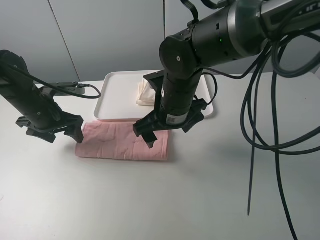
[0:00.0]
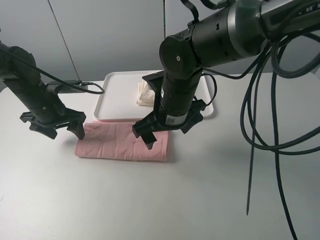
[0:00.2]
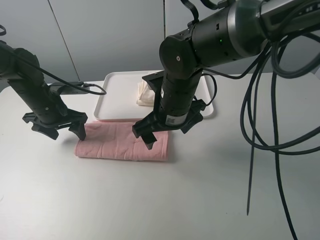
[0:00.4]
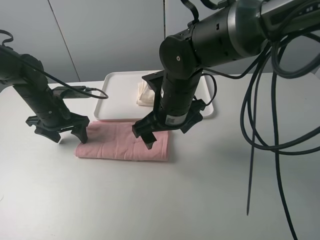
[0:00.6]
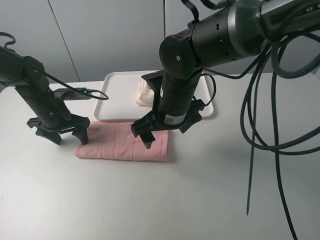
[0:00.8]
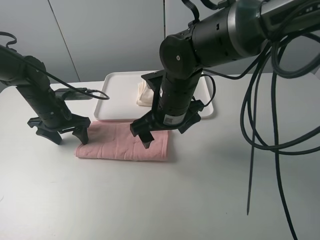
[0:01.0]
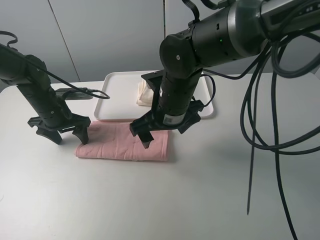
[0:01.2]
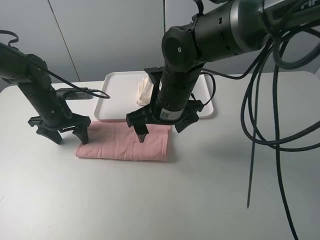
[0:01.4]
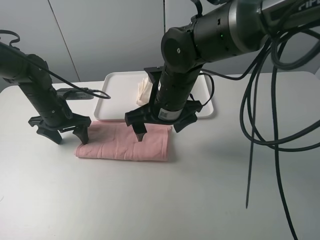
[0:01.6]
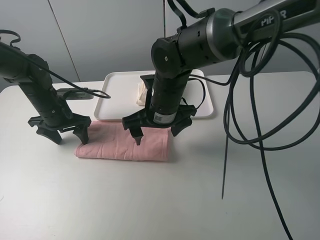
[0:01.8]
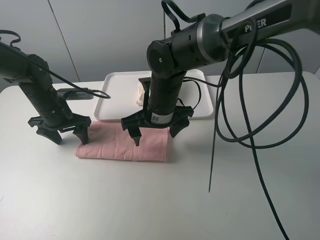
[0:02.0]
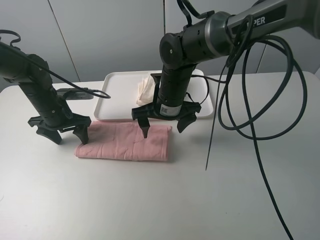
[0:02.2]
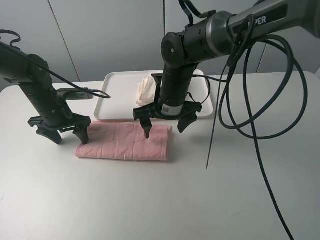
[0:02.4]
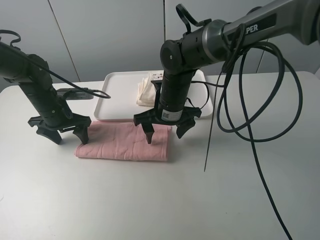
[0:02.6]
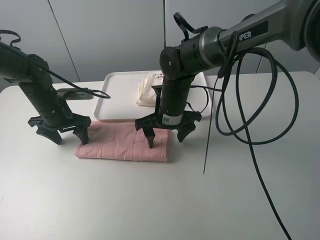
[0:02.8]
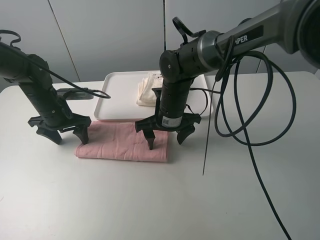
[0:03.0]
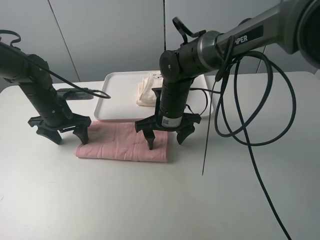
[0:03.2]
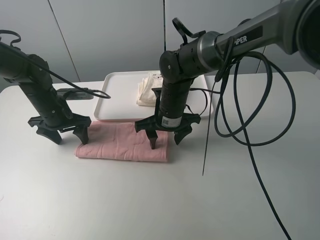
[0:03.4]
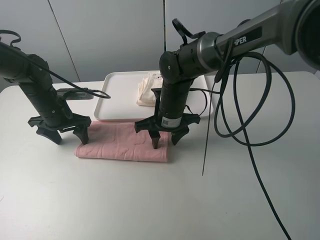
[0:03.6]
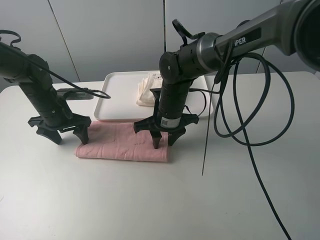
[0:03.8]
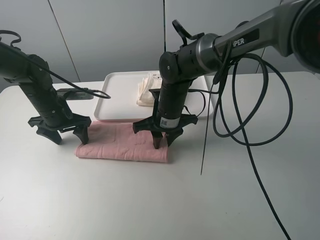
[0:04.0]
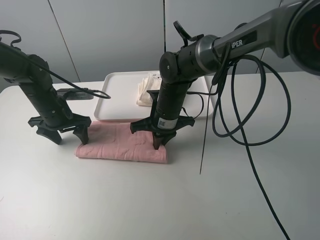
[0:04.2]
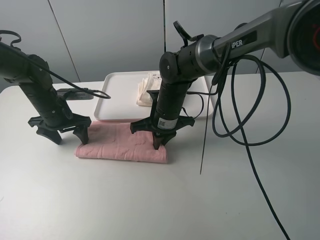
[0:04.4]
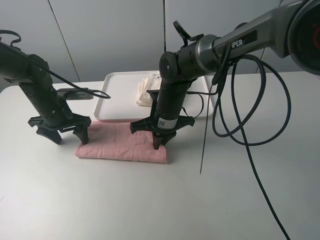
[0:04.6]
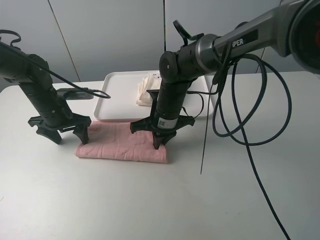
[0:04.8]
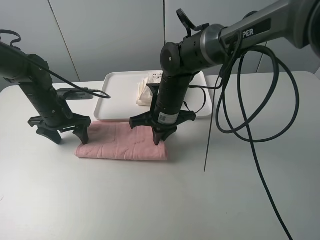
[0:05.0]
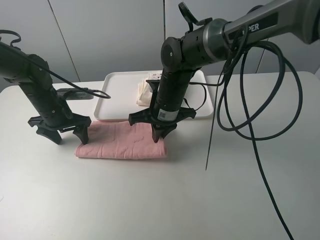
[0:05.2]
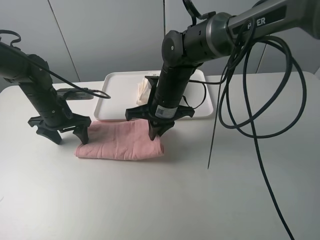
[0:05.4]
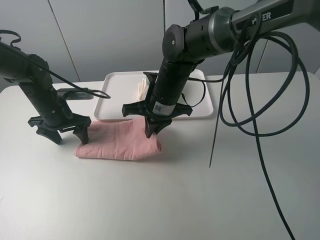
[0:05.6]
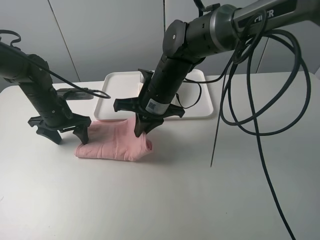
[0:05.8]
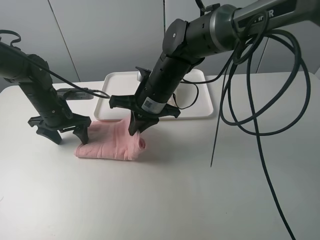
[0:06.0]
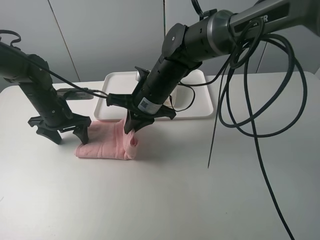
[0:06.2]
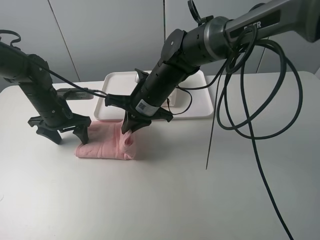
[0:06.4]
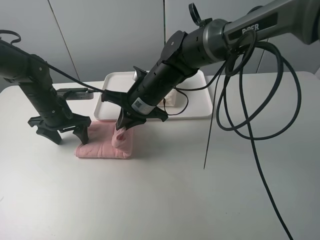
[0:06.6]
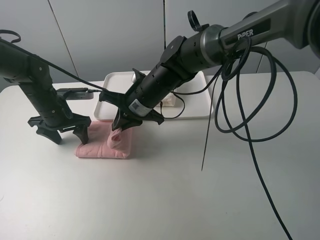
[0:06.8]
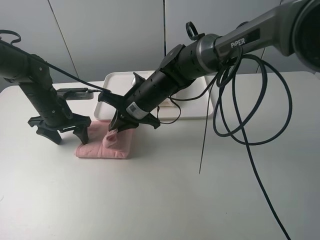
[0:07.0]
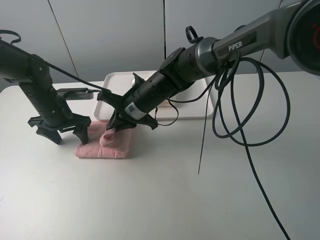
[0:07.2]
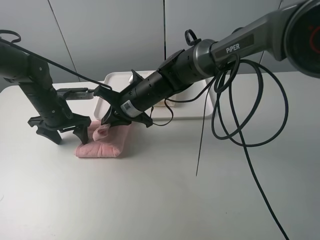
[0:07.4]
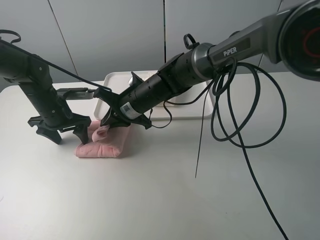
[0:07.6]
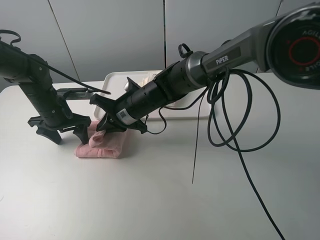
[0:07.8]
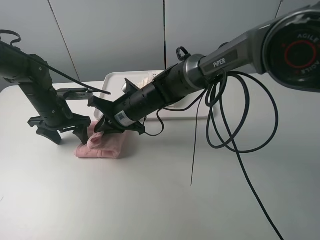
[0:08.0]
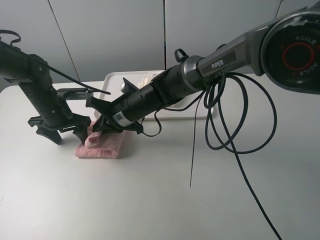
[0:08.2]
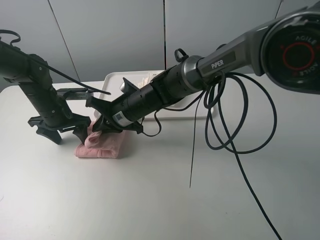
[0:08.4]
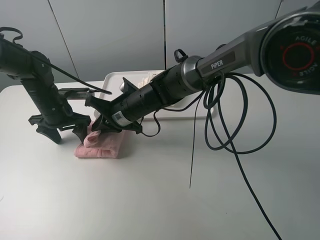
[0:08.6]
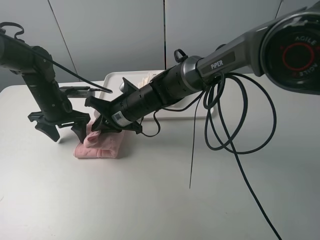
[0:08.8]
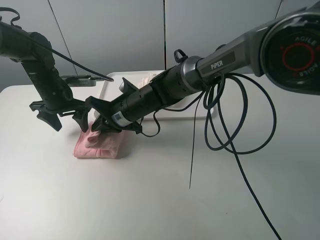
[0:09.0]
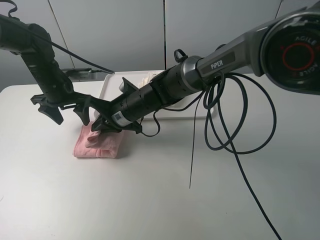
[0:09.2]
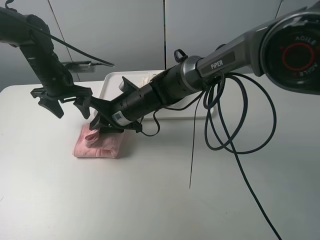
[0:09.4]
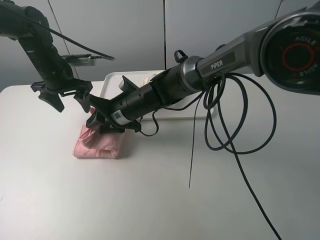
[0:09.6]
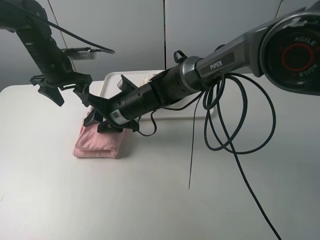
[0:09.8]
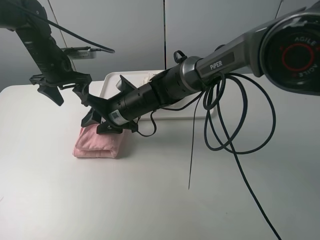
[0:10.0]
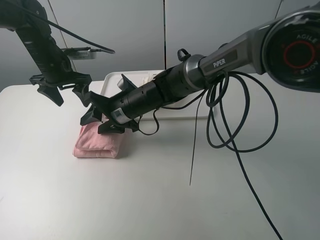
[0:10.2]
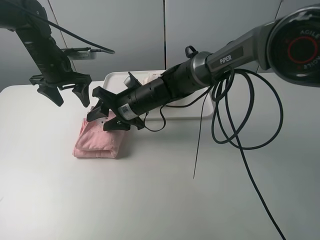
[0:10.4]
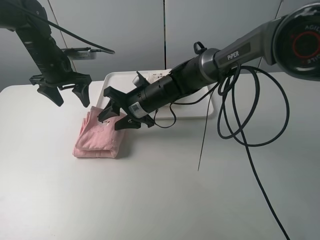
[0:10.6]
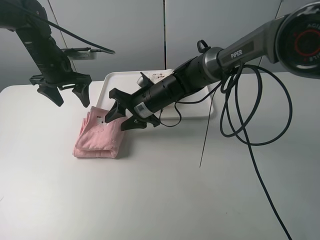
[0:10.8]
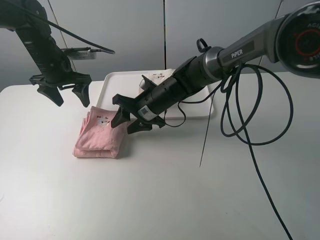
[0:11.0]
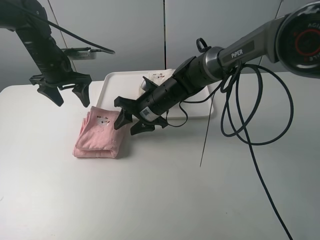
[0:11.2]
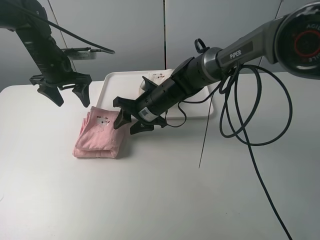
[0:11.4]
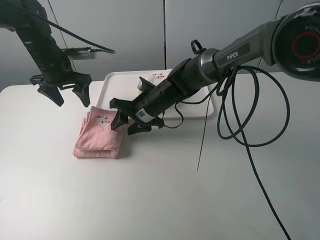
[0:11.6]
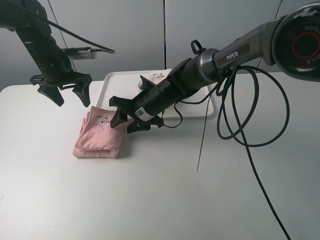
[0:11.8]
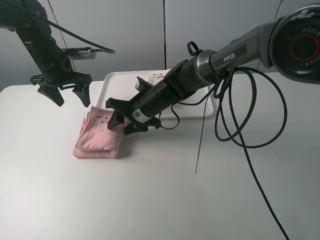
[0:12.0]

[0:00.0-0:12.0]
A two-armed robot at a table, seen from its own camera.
Task of the whole recording: fold one of the towels by two grippers and place it on the tray,then fold another towel by two grippers and place it on the folded towel.
Step, 0:00.0 to 0:01.2: Press the pink towel with the left gripper.
Step, 0:01.4 to 0:04.2: Grasp the pink towel with the right gripper.
Step, 0:04.4 to 0:09.8: Fold the pink towel from right to left with right gripper.
0:00.0 to 0:01.6: The grippers make only small movements.
0:01.6 to 0:03.0: The right gripper shifts roughly 5 cm downward.
0:03.0 to 0:04.4: The right gripper closes up.
0:04.4 to 0:06.0: The right gripper shifts about 5 cm upward.
0:06.0 to 0:07.6: The right gripper changes place by roughly 5 cm.
0:07.6 to 0:09.0: The left gripper shifts by roughly 5 cm.
0:09.0 to 0:10.4: The right gripper opens its fingers; the left gripper moves upward, about 5 cm.
0:10.4 to 0:12.0: The grippers stay close to where they were, moving slightly.

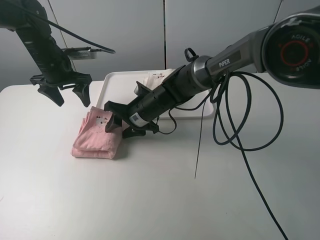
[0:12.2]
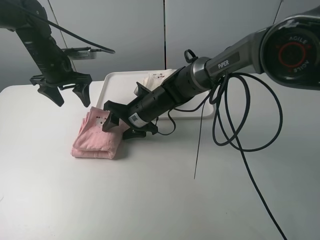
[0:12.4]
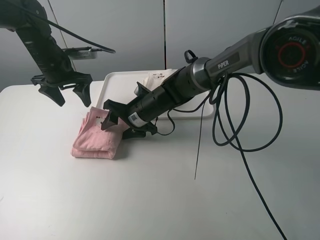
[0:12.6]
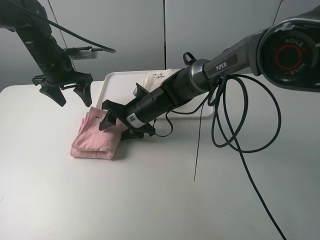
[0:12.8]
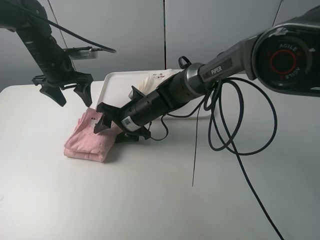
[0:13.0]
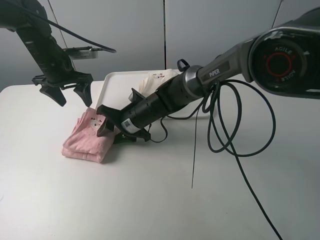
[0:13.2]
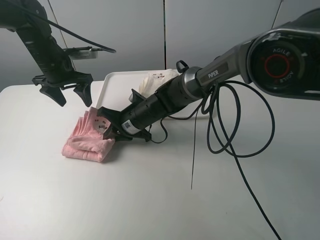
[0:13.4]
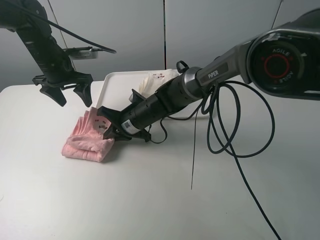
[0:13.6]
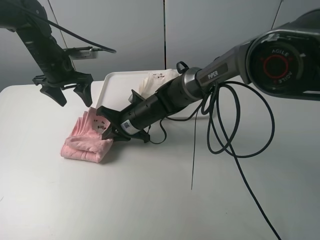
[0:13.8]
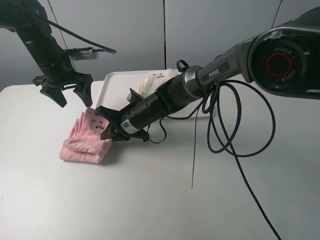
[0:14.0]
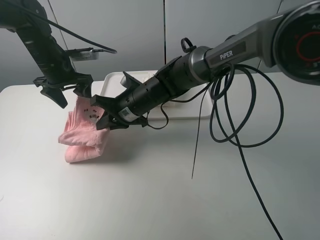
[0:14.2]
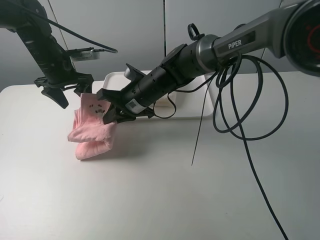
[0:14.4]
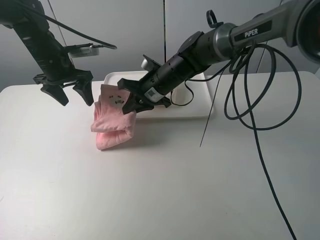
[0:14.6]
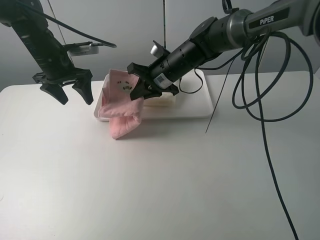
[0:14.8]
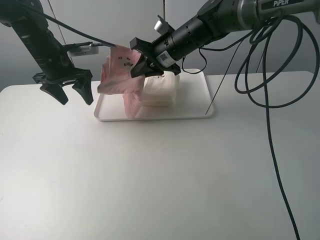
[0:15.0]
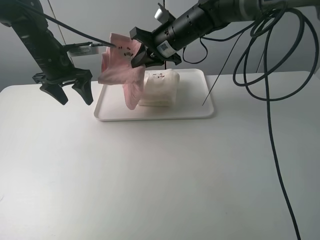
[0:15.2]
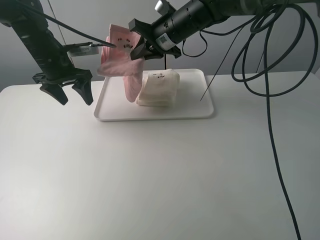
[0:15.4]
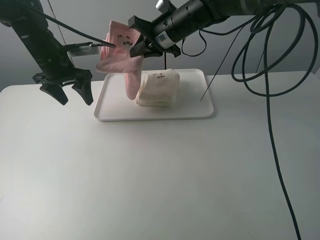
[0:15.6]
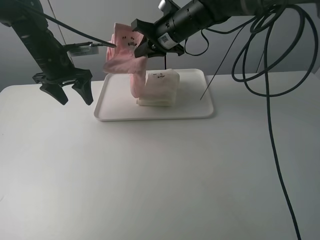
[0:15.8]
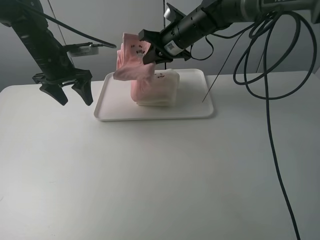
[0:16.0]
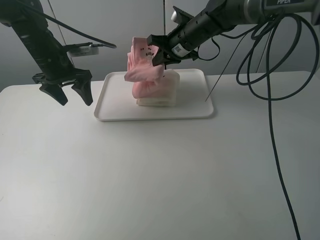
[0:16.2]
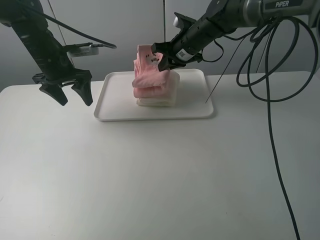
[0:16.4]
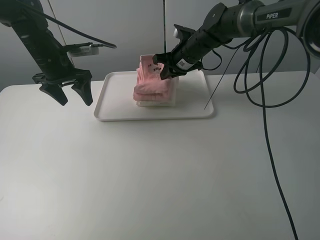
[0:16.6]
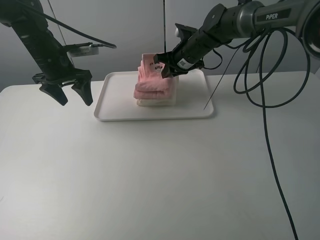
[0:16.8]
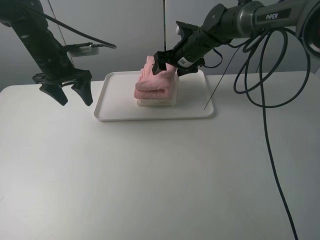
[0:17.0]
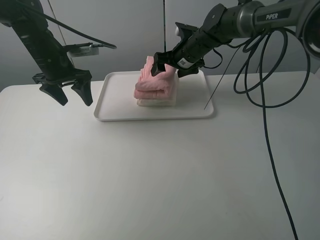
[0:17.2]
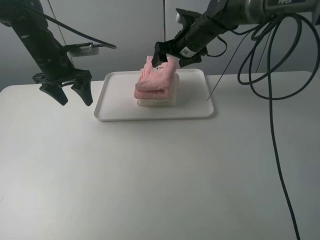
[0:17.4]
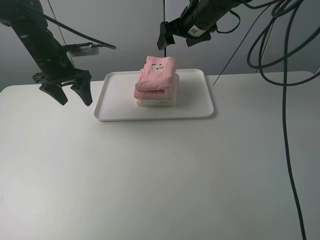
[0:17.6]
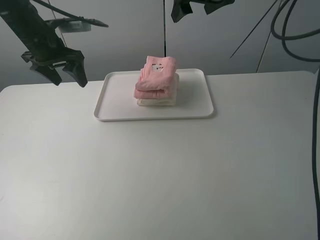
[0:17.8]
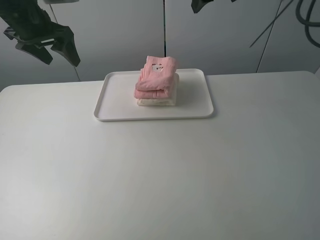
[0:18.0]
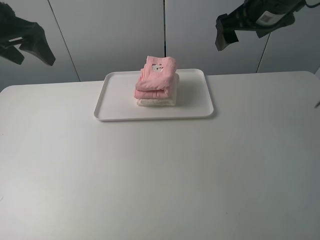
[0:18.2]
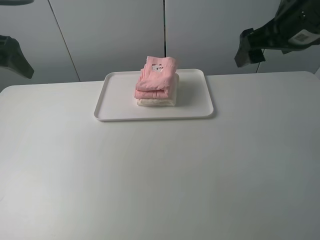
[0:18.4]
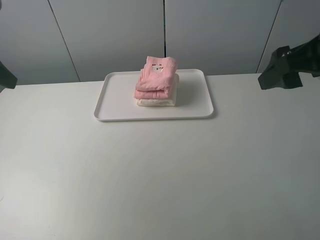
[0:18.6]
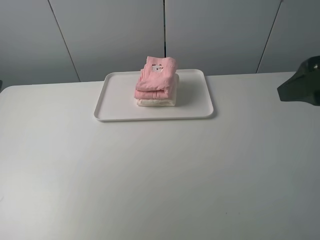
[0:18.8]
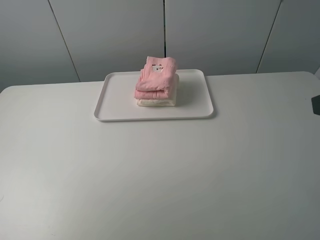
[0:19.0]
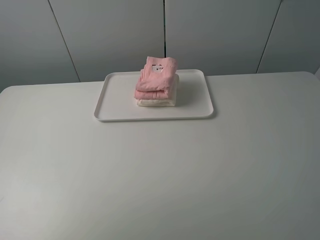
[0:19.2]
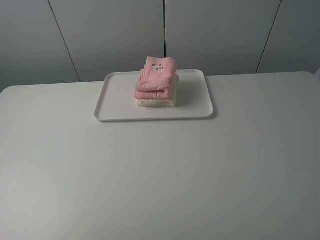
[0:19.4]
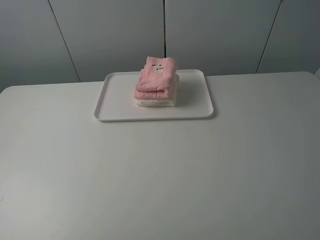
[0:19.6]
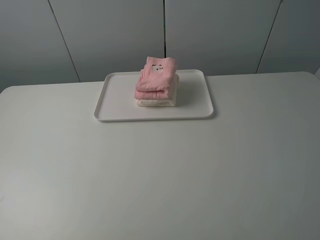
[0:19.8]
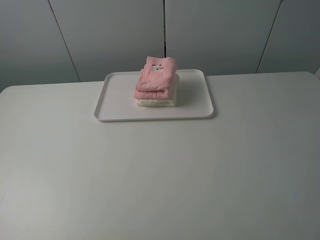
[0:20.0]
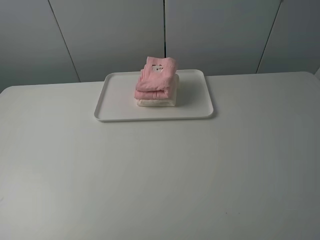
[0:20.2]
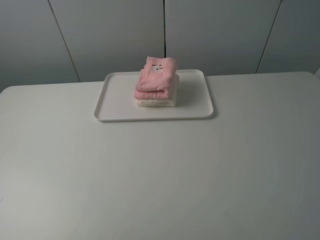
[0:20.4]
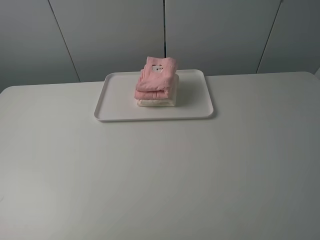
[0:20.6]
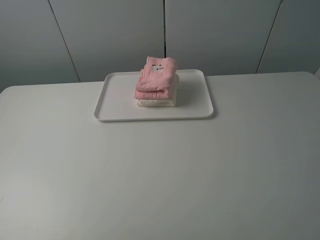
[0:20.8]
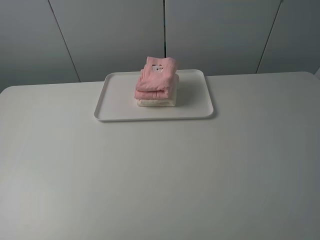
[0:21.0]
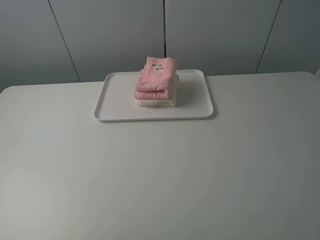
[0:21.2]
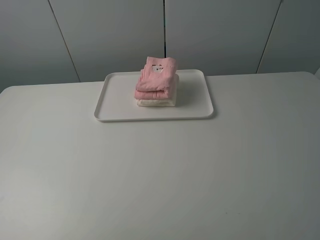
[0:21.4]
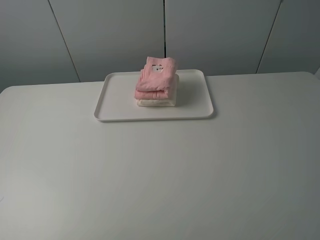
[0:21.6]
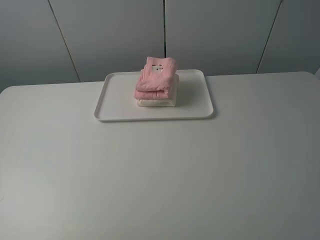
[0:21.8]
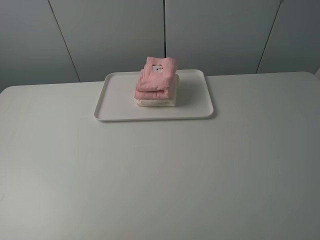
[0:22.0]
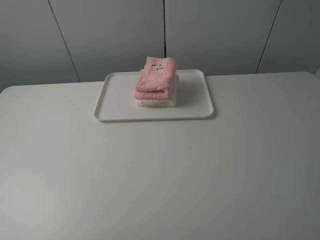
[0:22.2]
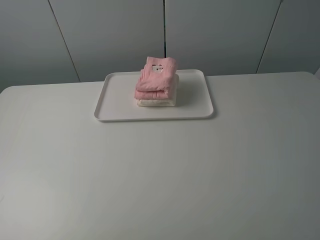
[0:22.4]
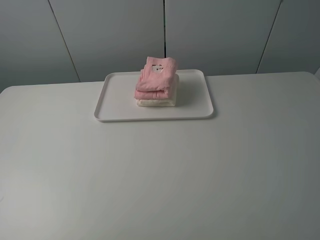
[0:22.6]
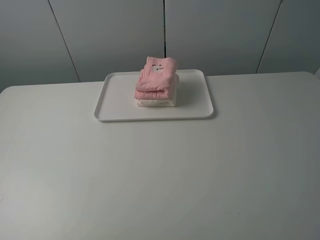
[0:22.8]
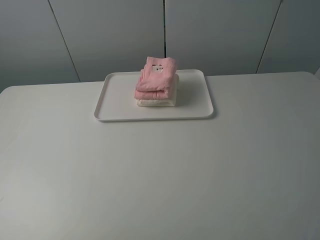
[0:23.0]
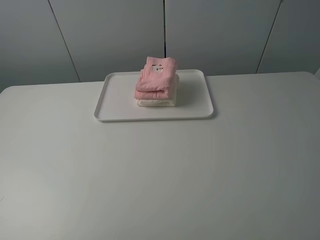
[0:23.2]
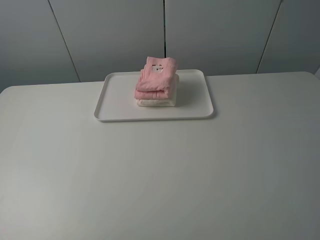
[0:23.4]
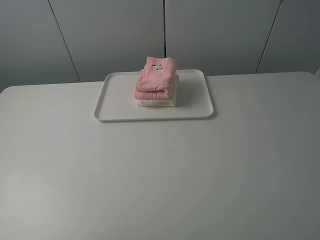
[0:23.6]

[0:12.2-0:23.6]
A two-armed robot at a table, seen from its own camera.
Task of the whole recording: fold one of the towels by two grippers and place it on the tray,then fold another towel by two grippers and place it on the folded towel.
Step, 0:13.6 to 0:17.2: Place the pink towel on the white towel with the right gripper.
0:12.2 to 0:13.6: The right gripper closes its fingers.
0:13.6 to 0:15.0: The right gripper is displaced upward, forward and to the right by about 20 cm.
0:15.0 to 0:16.4: The right gripper moves some 5 cm.
0:16.4 to 0:17.8: The left gripper shifts some 5 cm upward. The right gripper heads upward, covering about 15 cm, and opens up.
0:17.8 to 0:19.4: Both grippers move backward, approximately 40 cm.
0:22.2 to 0:23.6: The two grippers keep their place.
